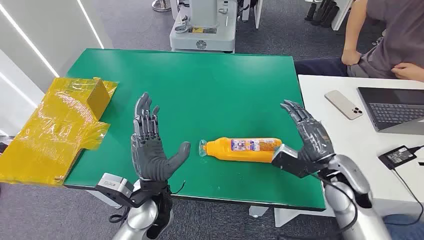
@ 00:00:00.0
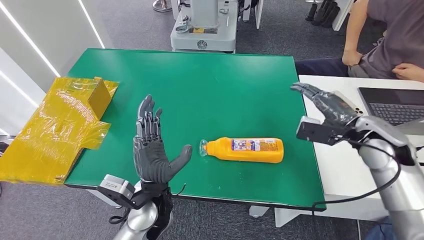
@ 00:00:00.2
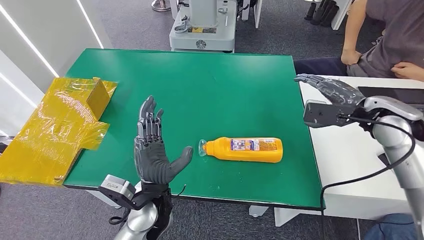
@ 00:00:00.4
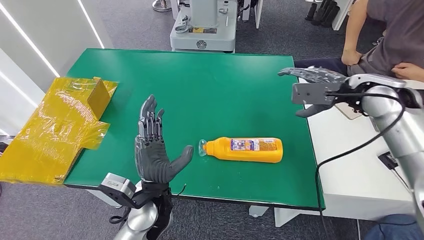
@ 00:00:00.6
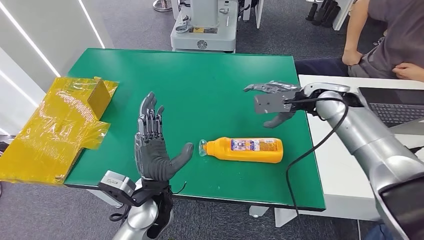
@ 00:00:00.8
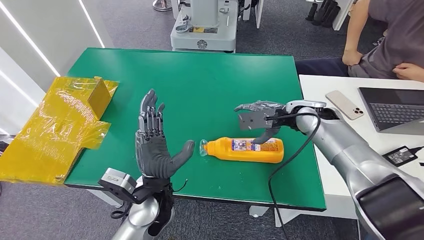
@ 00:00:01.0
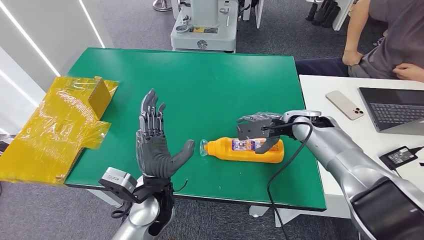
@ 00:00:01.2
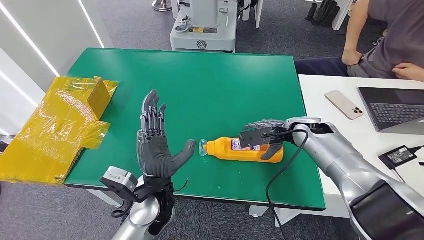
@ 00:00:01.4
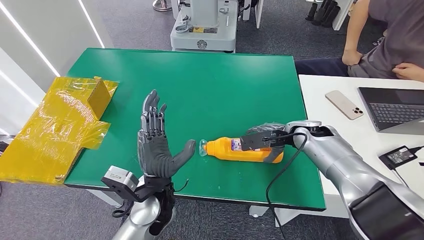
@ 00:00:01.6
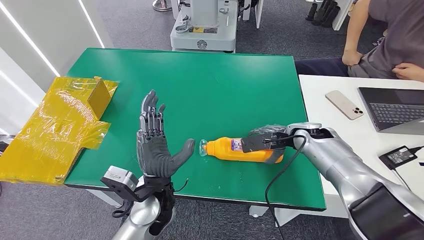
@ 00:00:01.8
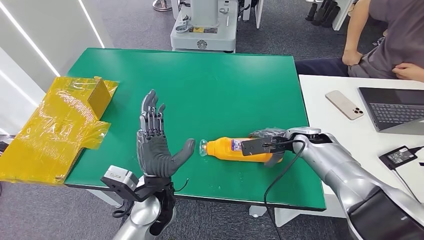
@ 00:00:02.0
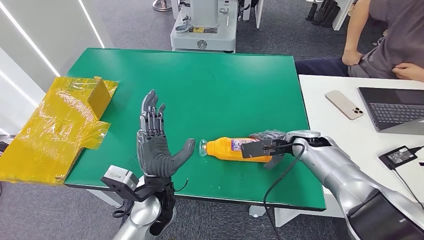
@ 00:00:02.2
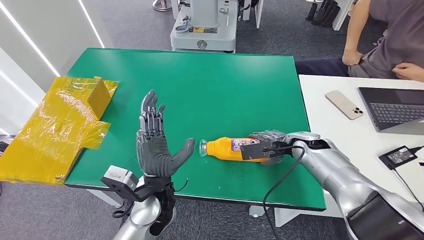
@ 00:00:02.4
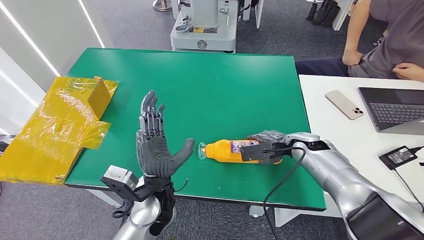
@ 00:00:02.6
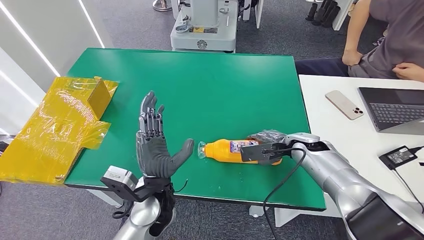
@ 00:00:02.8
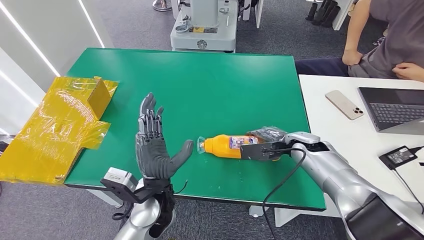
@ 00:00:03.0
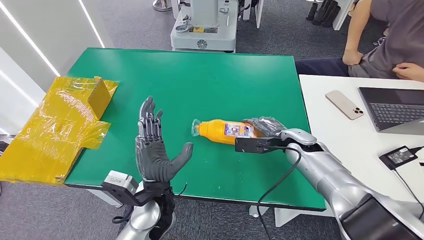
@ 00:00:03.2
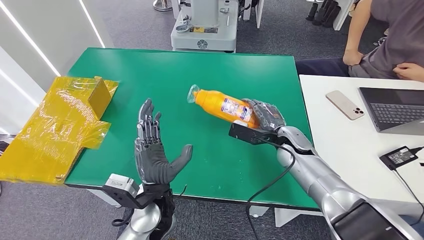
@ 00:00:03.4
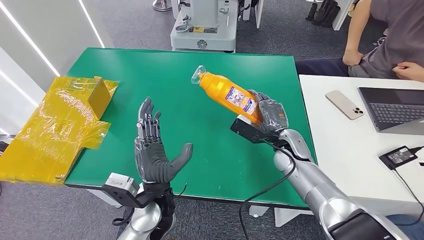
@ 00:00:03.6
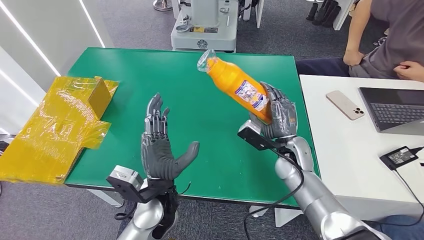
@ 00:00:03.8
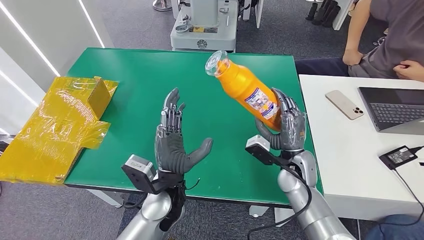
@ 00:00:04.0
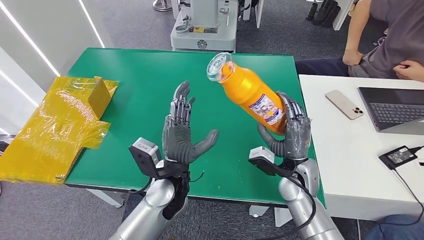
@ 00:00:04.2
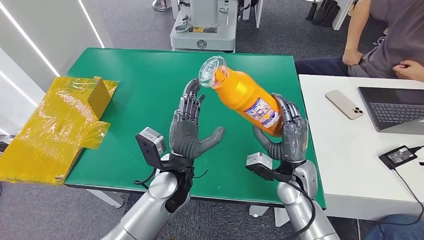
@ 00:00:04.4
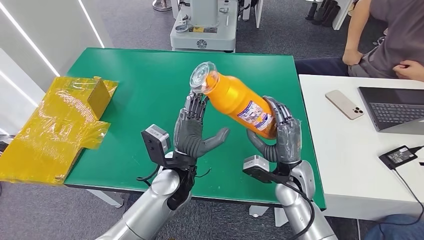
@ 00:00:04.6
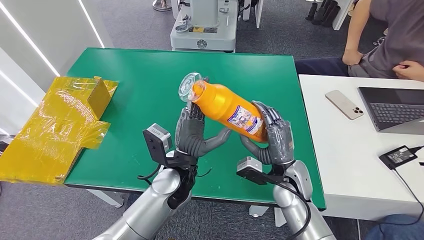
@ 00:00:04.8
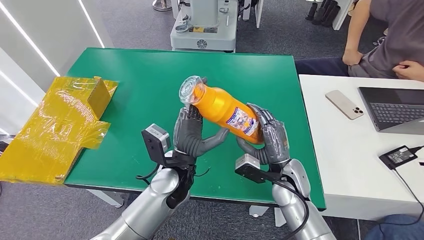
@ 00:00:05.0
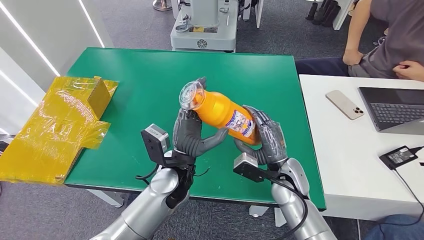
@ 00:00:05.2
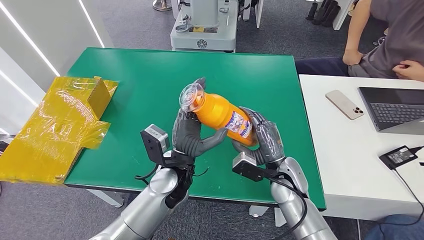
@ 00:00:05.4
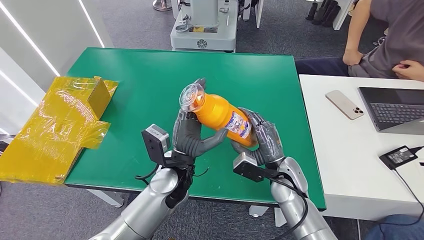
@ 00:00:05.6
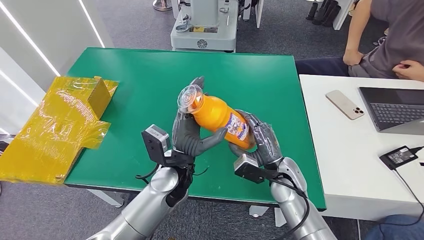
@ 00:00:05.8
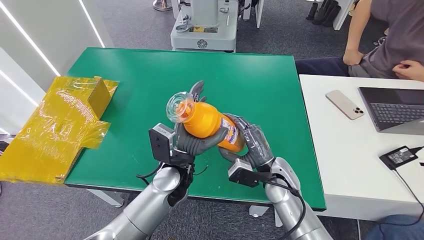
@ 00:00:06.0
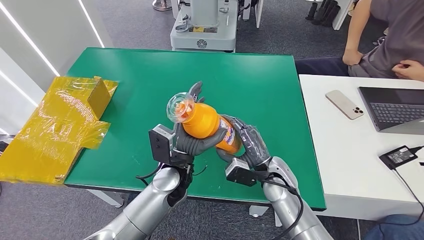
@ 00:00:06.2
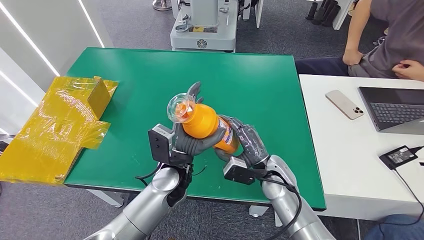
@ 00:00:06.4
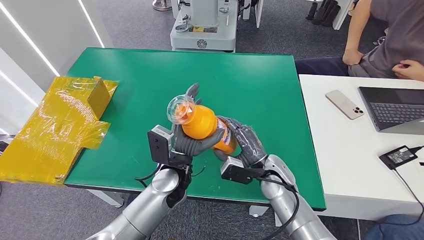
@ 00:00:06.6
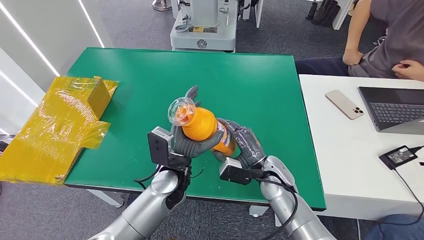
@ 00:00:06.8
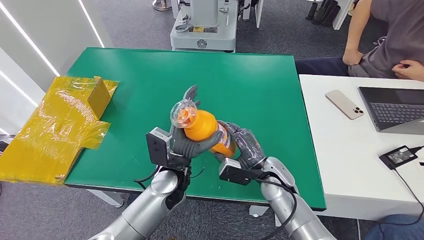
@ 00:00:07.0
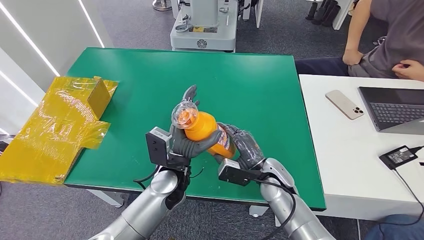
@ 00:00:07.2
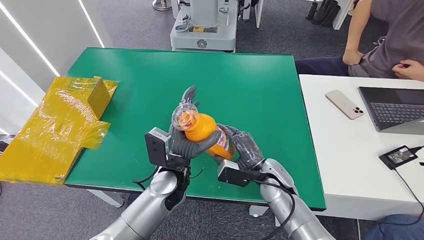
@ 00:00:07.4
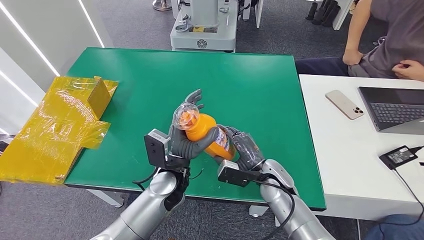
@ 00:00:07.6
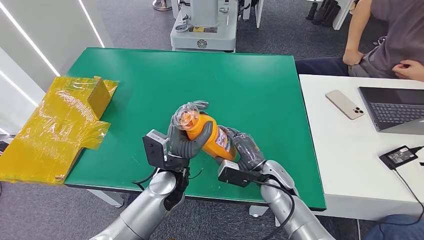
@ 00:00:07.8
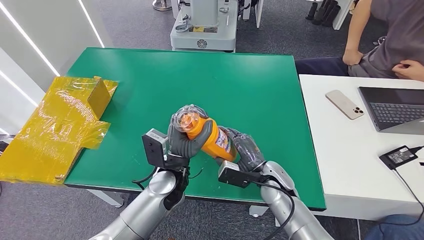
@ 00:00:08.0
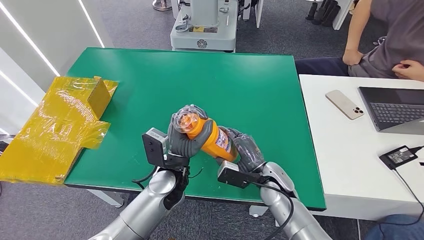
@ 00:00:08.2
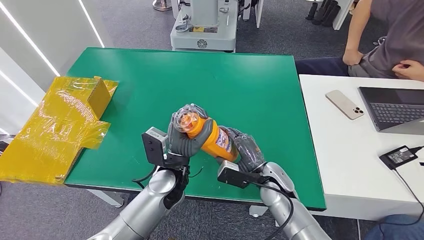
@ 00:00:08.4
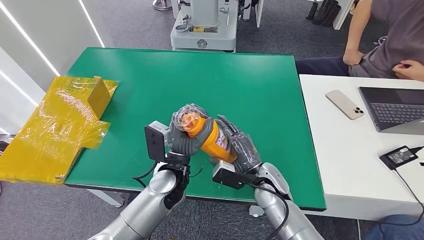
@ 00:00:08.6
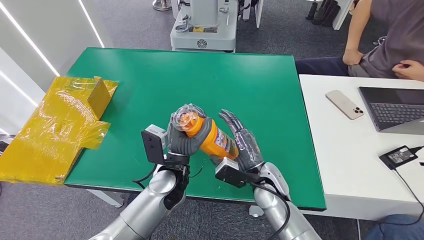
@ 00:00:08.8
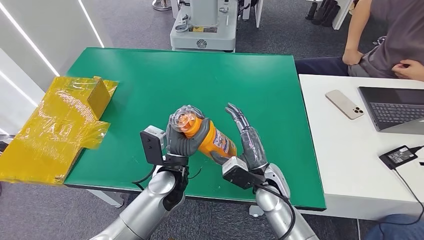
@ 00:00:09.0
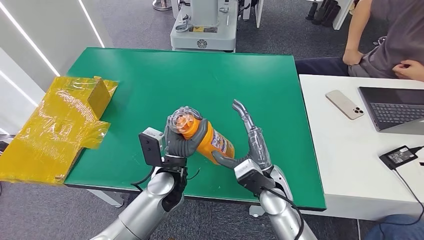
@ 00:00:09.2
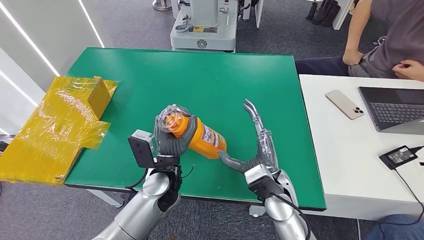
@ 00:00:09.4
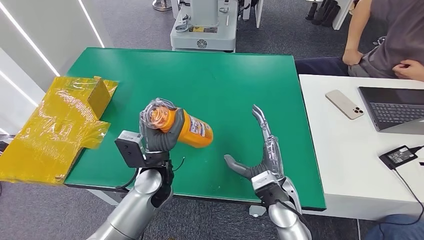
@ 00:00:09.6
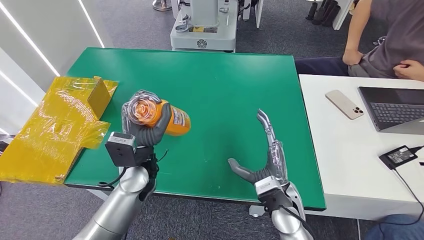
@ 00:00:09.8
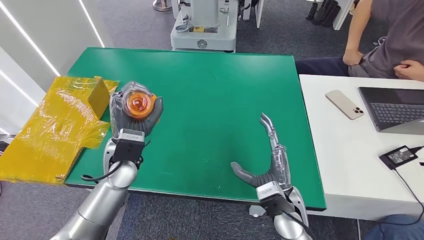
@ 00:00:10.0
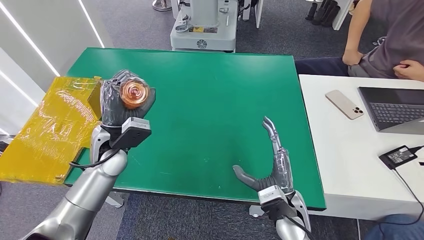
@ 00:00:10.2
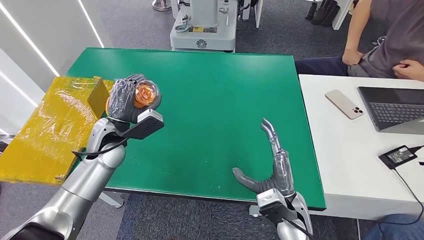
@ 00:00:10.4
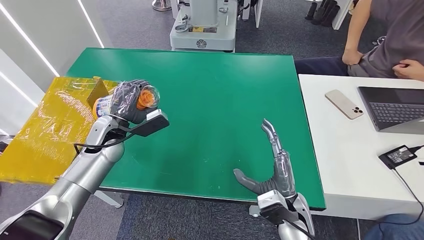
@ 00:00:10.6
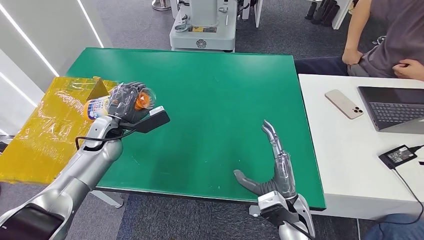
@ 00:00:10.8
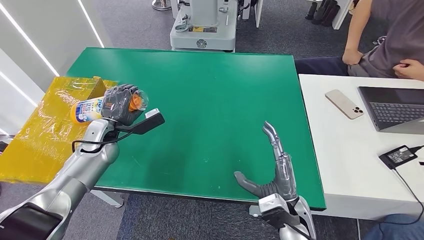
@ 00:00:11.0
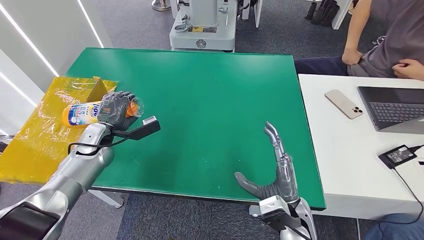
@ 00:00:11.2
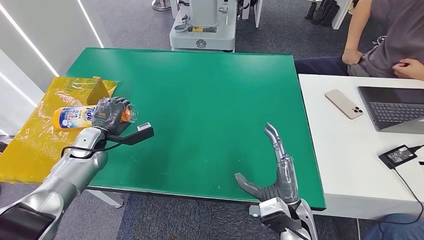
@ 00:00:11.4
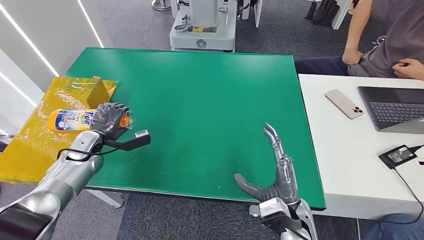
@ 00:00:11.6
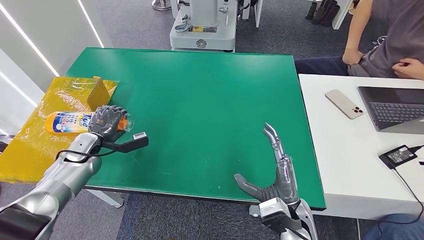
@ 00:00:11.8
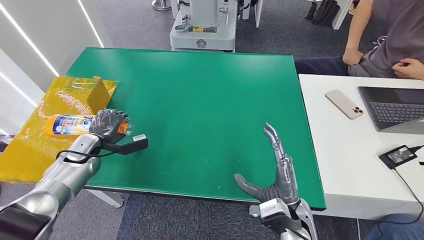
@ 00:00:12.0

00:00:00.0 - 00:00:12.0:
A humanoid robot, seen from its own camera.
Step, 00:00:00.0 - 00:00:04.6: Pick up the bottle from the table.
00:00:01.6 - 00:00:03.0: The hands move only a little.
00:00:03.0 - 00:00:04.4: The right hand is displaced to the left and backward by about 15 cm. Meanwhile the left hand changes place by about 5 cm.
00:00:06.0 - 00:00:07.6: The hands move only a little.
00:00:09.0 - 00:00:10.4: The right hand travels backward by about 5 cm. Meanwhile the left hand is displaced to the left by some 20 cm.
00:00:10.4 - 00:00:12.0: The left hand is displaced to the left and downward by roughly 15 cm.

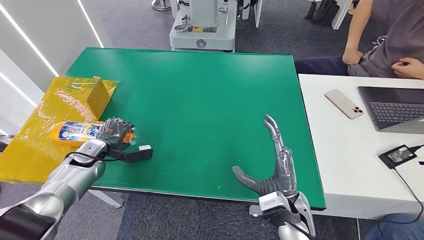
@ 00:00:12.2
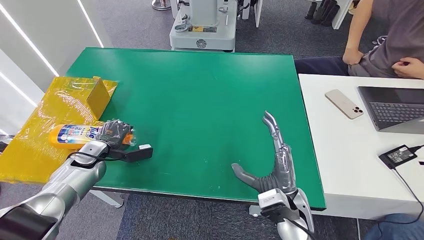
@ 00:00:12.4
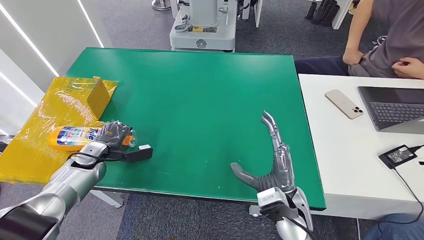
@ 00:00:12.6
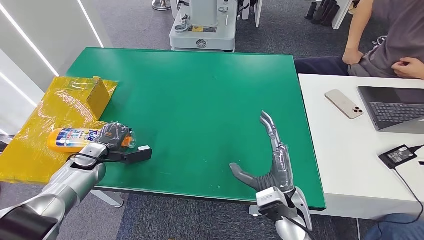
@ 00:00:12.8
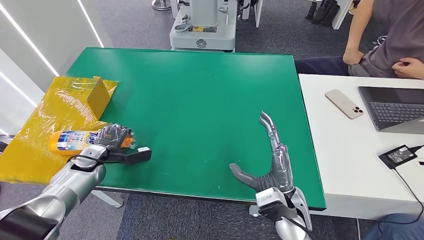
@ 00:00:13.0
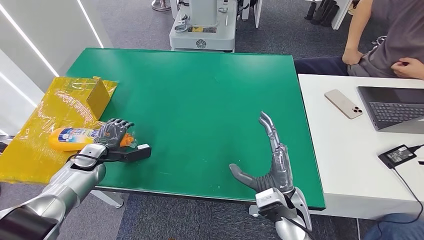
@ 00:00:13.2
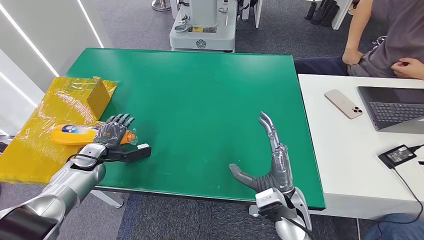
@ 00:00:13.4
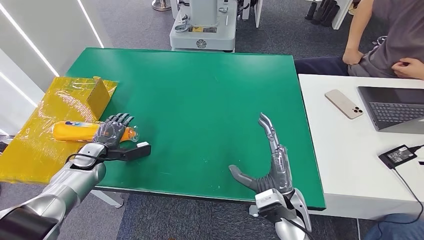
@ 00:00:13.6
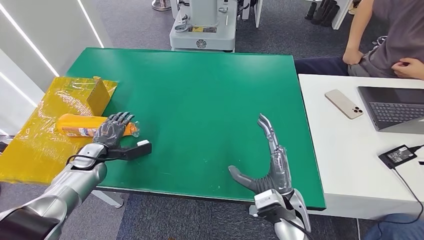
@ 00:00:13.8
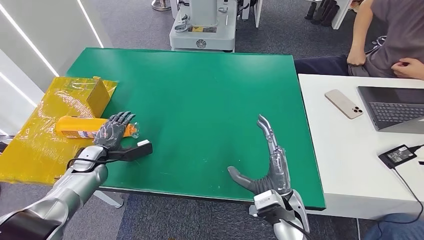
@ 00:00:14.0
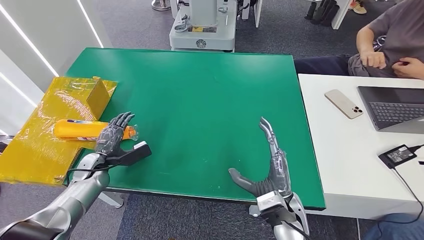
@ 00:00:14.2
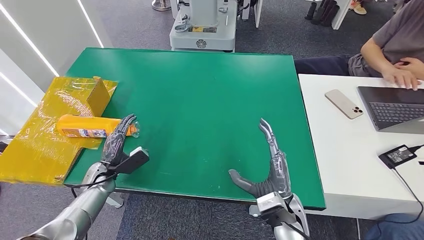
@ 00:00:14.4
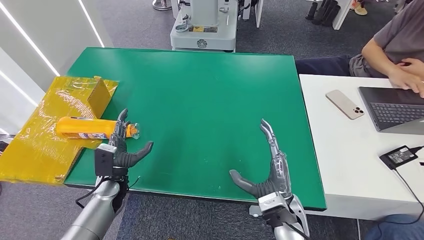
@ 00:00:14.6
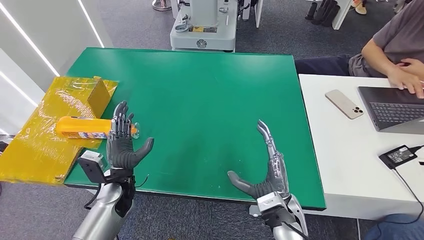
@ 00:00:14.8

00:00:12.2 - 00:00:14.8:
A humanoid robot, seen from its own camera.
Step, 00:00:12.2 - 00:00:14.8: Turn the bottle to the front side.
00:00:12.2 - 00:00:13.4: The hands stay close to where they were, moving slightly.
00:00:13.4 - 00:00:14.8: The left hand moves to the right and backward, approximately 15 cm.
